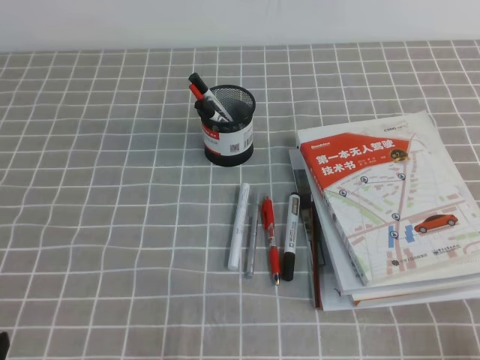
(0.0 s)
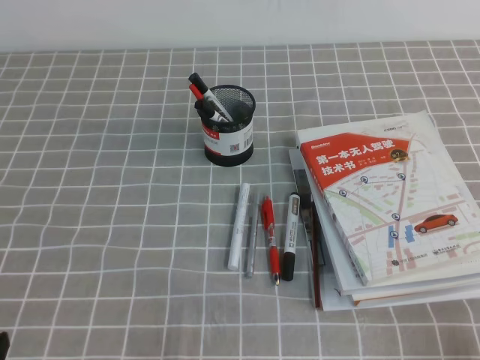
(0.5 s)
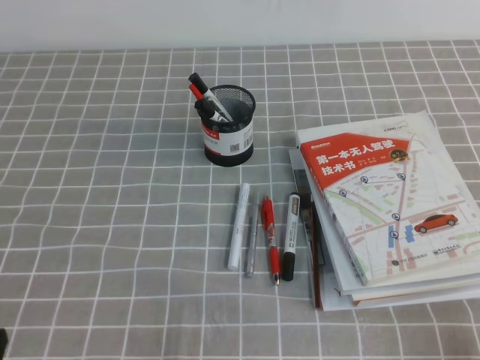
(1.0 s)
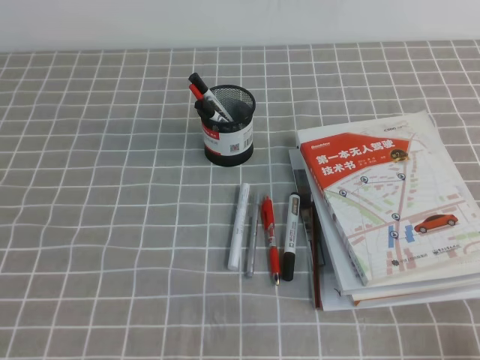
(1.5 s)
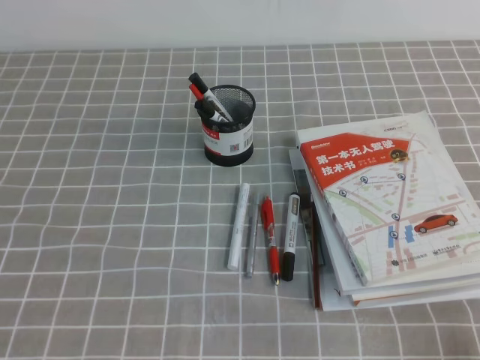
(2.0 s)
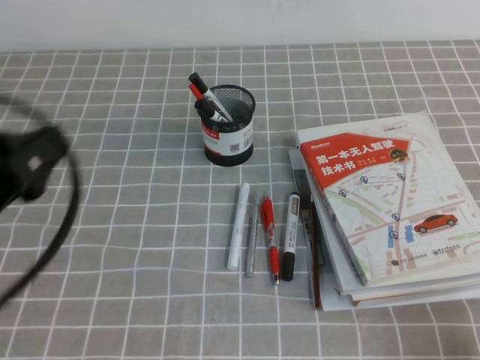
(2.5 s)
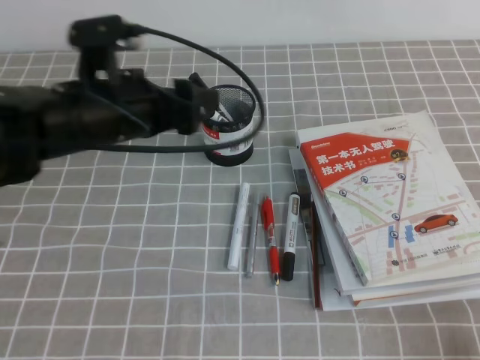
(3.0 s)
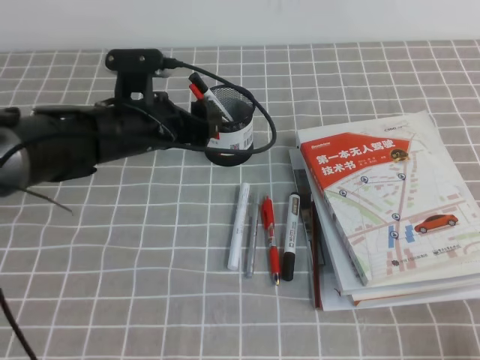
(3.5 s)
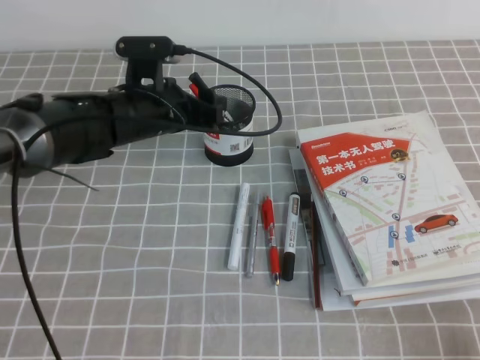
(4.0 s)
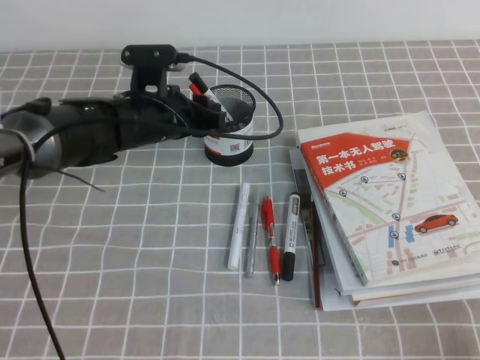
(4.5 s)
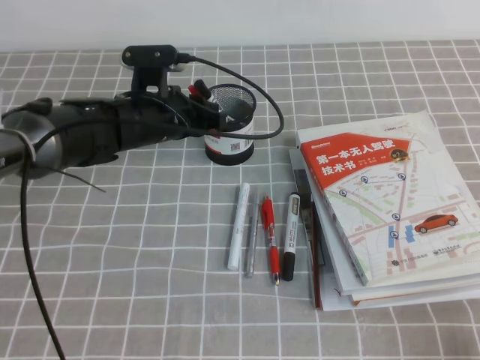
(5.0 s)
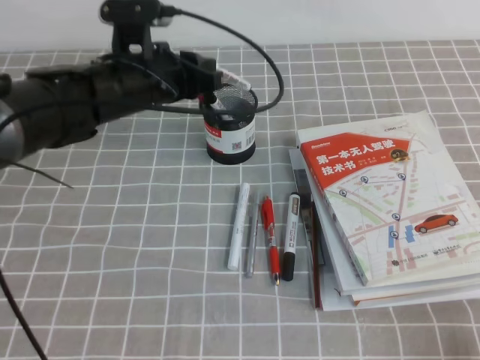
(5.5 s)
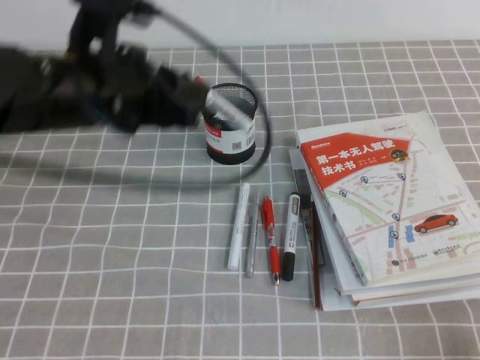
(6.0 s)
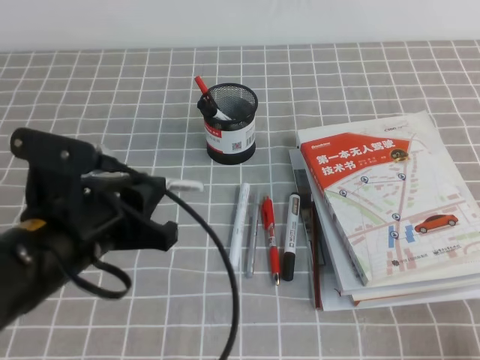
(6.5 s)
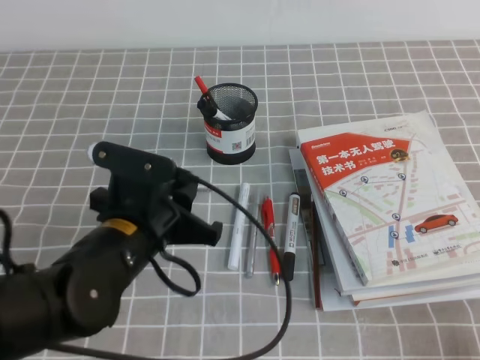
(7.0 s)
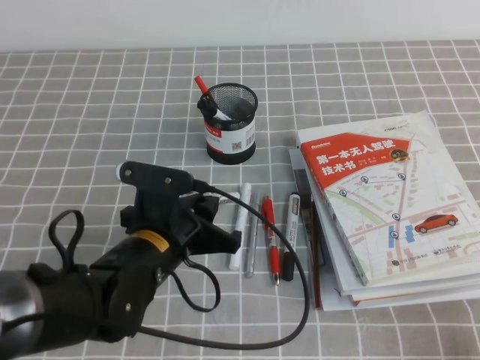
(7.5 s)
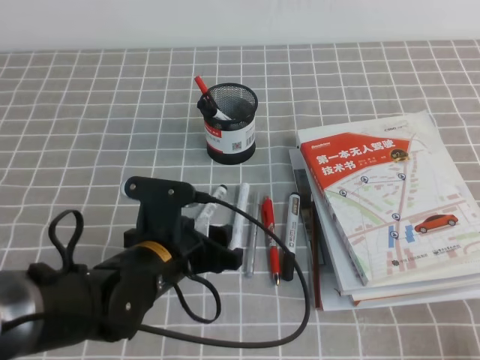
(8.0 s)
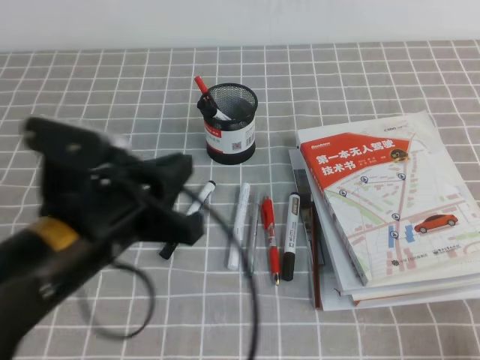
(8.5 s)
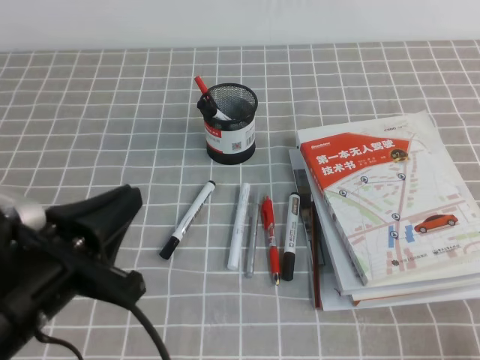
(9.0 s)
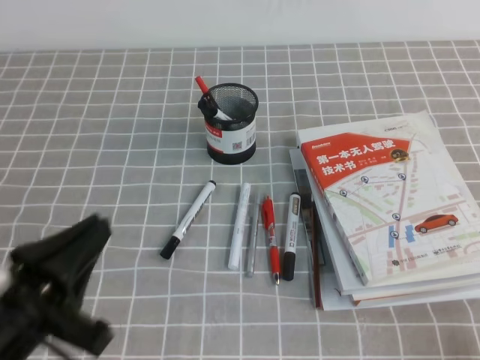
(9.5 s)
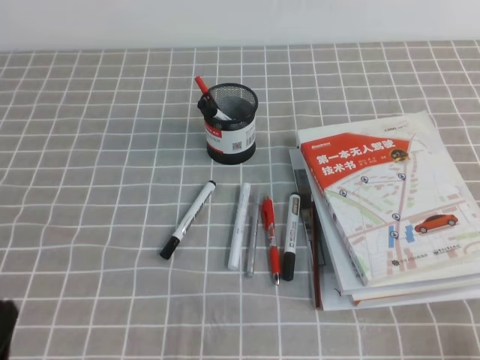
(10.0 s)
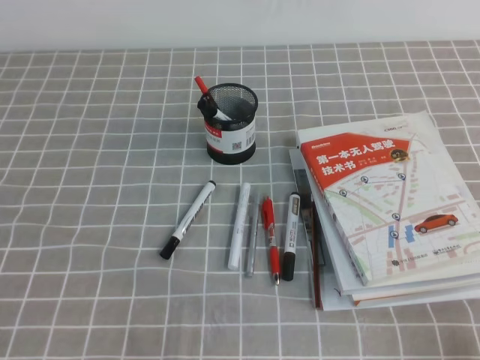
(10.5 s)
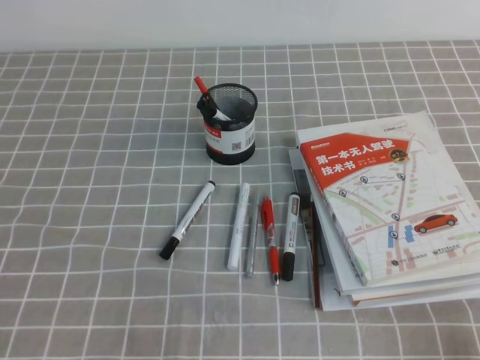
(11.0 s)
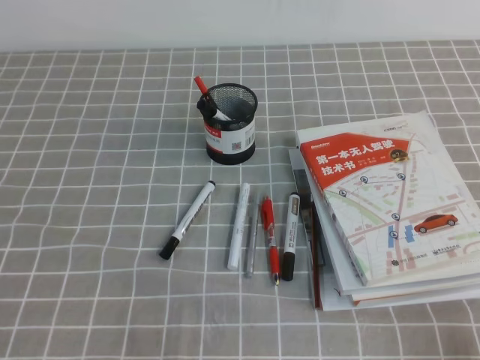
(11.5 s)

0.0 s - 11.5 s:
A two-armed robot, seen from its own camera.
Step, 0.0 s - 11.5 s: Pick up the pen from the pen holder.
2.0 s - 4.0 s: The left gripper is displaced forward and to the right by approximately 40 cm, and opens up.
4.0 s - 6.0 s: The left gripper heads upward and backward, covering approximately 15 cm, and closes.
6.0 s - 7.5 s: The left gripper goes about 15 cm downward.
7.5 s - 9.5 s: The left gripper moves backward, to the left and upward, approximately 20 cm, and opens and closes again.
9.5 s - 11.5 s: The left gripper is displaced downward, to the left and backward by some 15 cm.

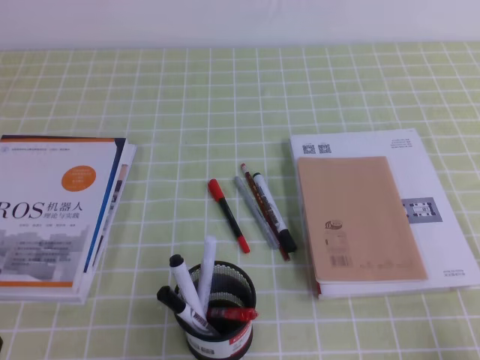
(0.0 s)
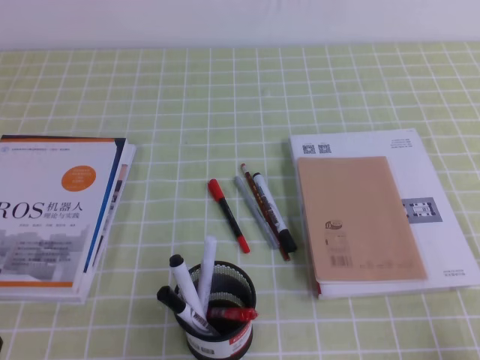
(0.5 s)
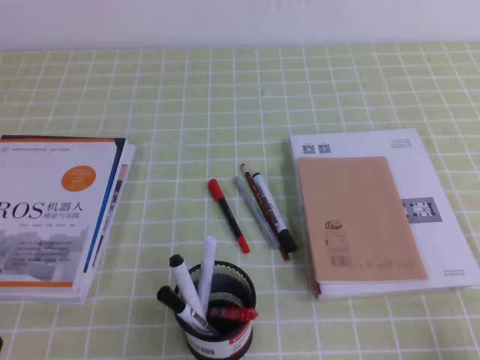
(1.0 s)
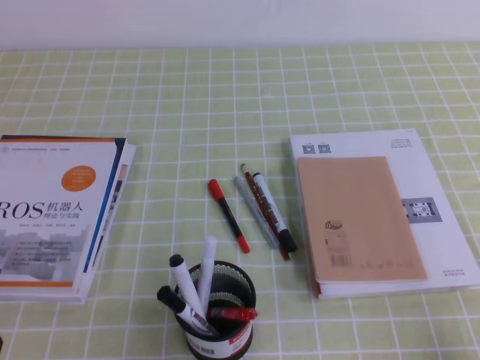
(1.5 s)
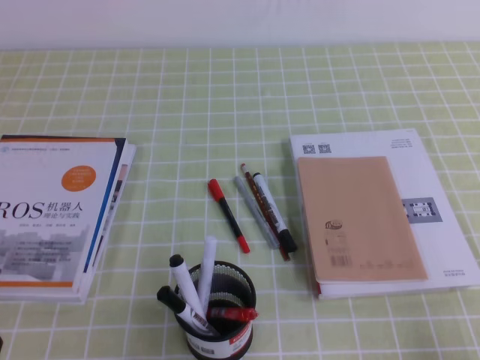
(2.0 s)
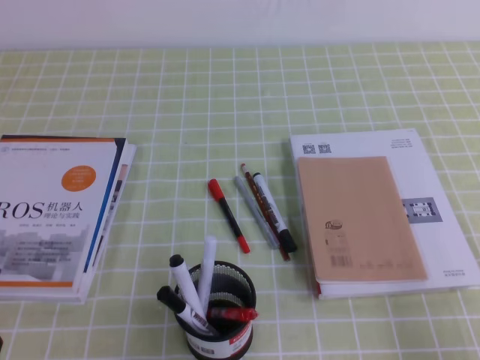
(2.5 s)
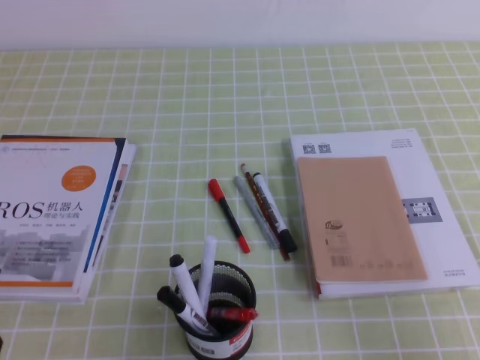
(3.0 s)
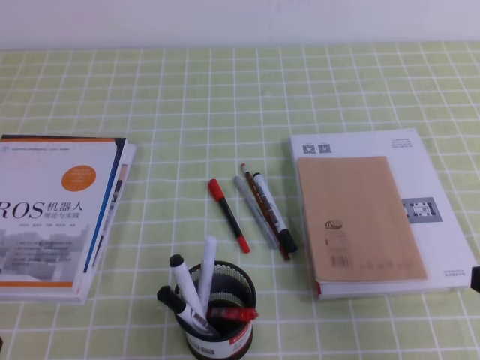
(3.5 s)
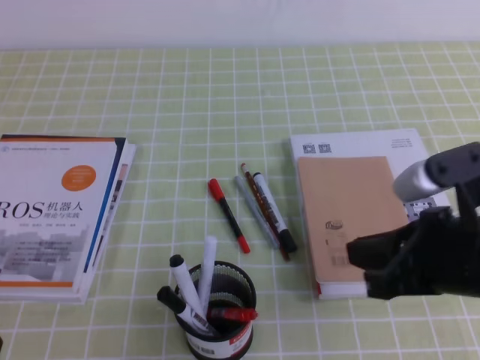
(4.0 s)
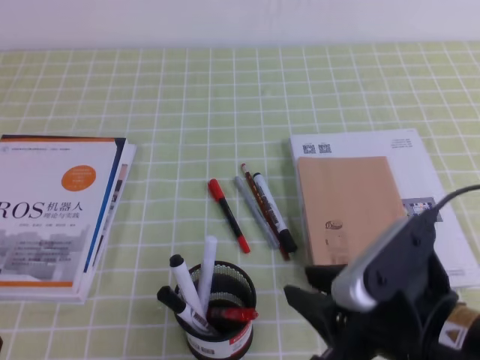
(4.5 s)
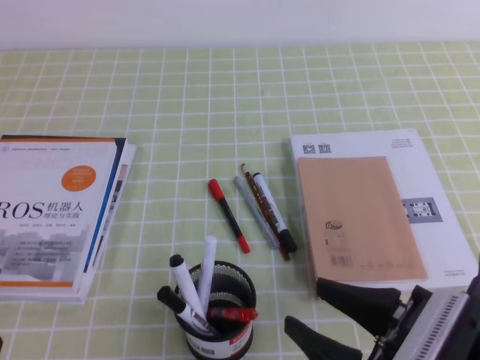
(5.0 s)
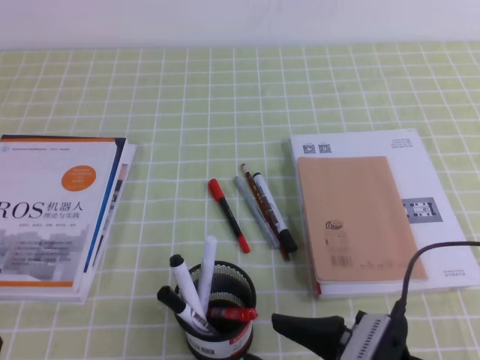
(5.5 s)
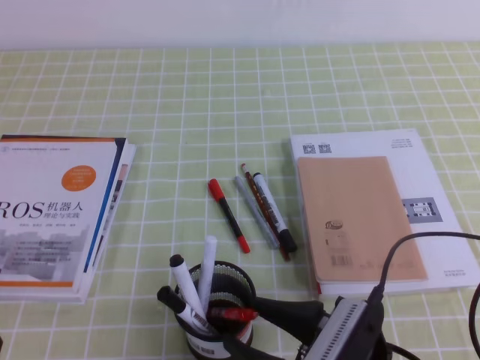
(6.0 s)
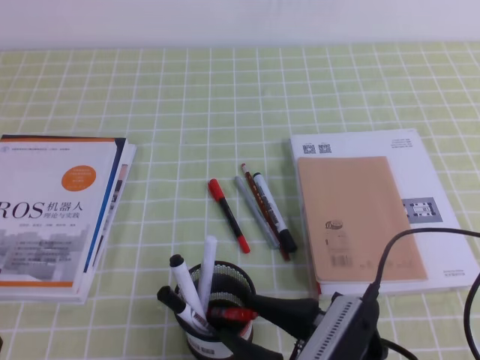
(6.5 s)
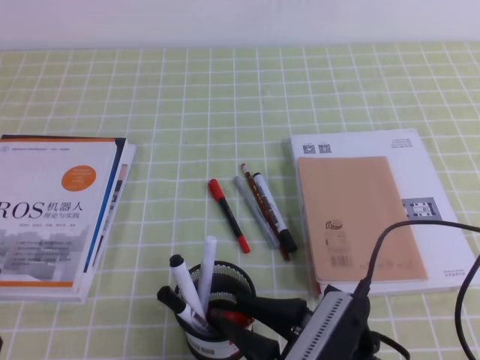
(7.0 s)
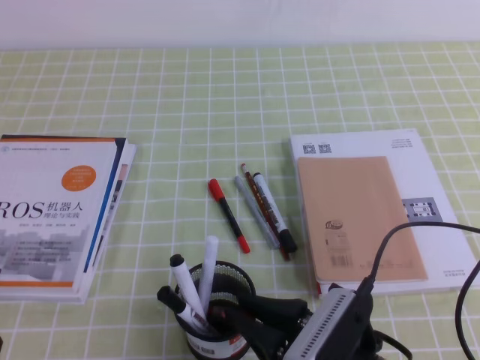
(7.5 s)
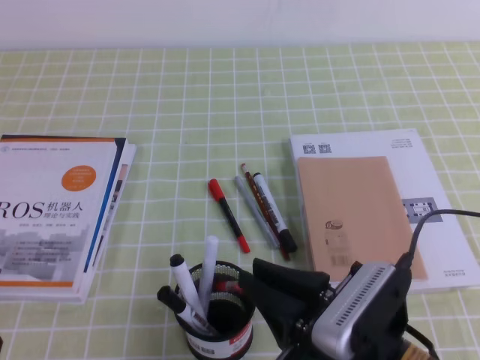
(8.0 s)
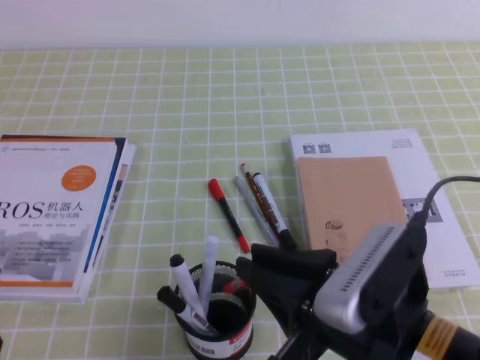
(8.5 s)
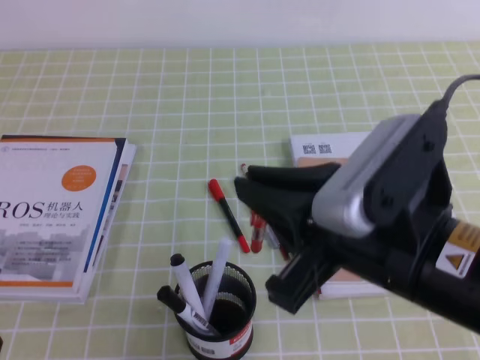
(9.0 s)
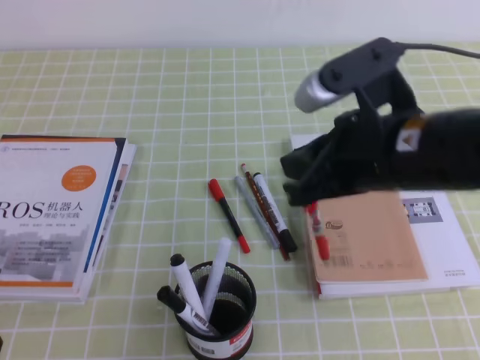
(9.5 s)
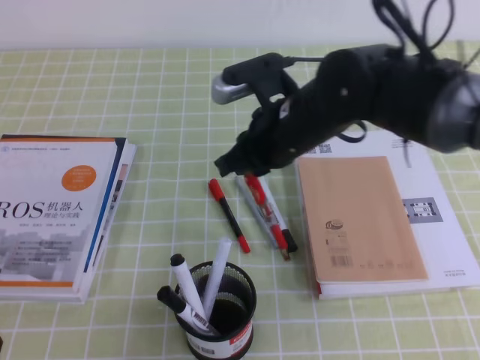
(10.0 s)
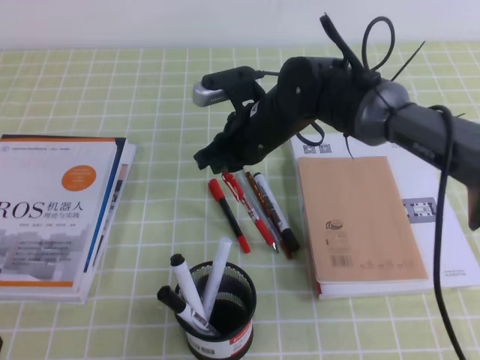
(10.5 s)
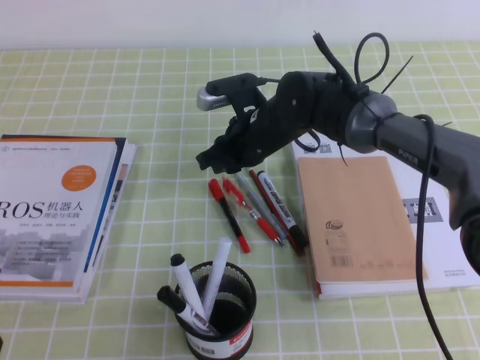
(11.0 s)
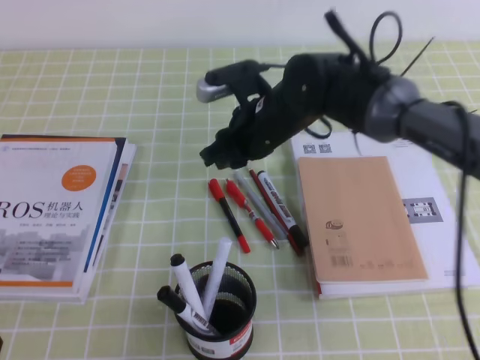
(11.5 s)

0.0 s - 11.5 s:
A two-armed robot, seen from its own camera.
2.0 s - 4.0 s: The right gripper travels forward, to the left and upward by some 20 cm.
4.0 s - 6.0 s: The right gripper moves downward, to the left and backward, approximately 15 cm, and opens up.
6.0 s - 7.5 s: The right gripper closes its fingers.
7.5 s - 9.5 s: The right gripper moves upward and forward, approximately 20 cm.
9.5 s - 11.5 s: The right gripper is displaced forward, downward and to the left by about 20 cm, and opens up.

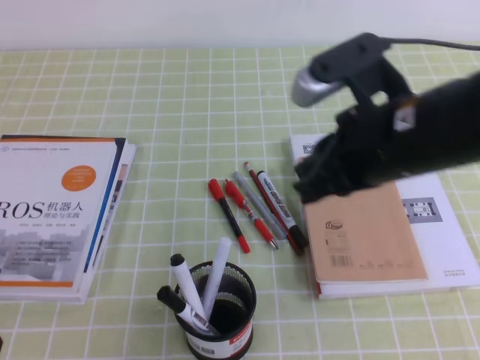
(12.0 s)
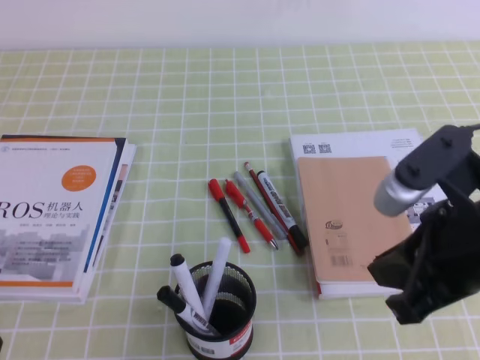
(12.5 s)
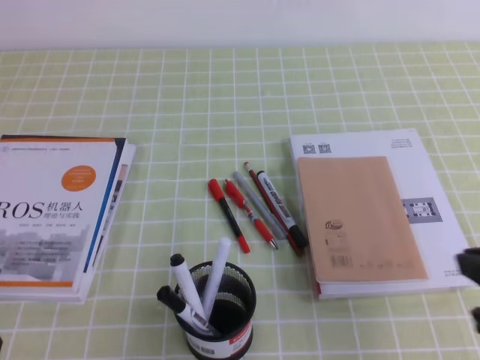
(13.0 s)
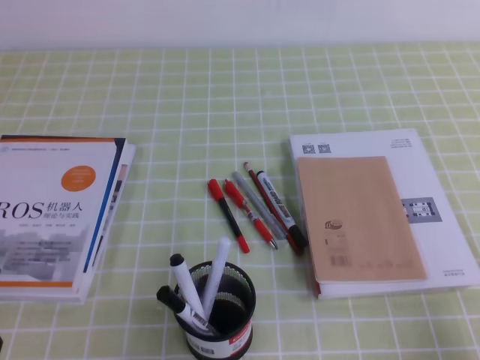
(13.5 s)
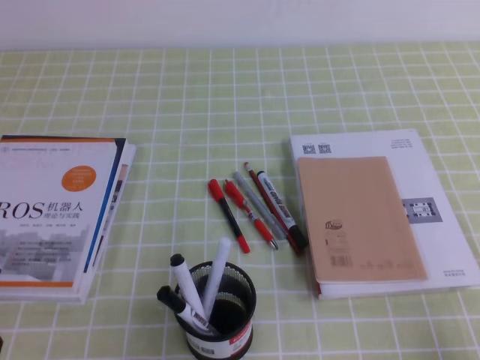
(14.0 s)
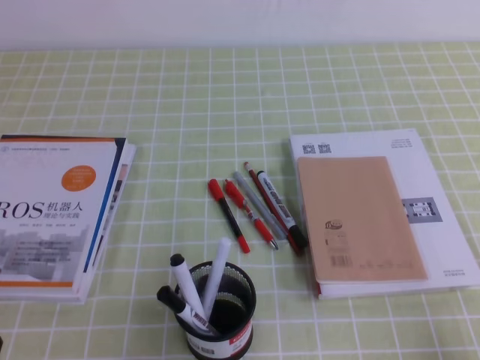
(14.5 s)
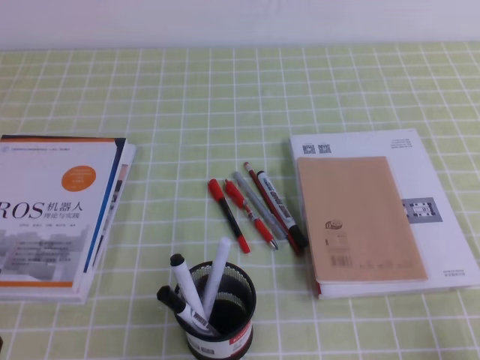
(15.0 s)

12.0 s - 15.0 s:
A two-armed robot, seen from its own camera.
Step, 12.0 s - 15.0 s: Pick up the pen from the pen holder.
12.0 s - 13.5 s: The right gripper is displaced to the right, backward and downward by about 30 cm.
